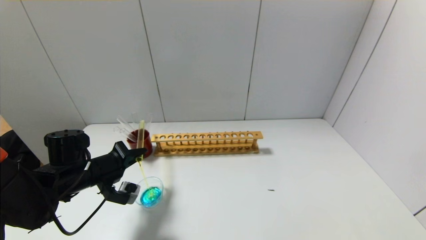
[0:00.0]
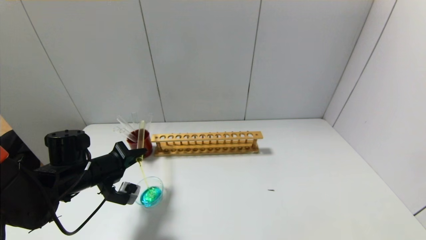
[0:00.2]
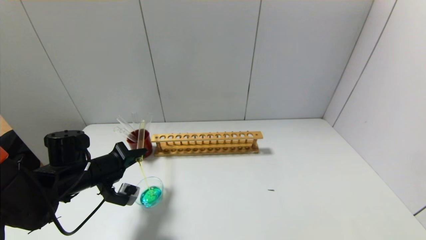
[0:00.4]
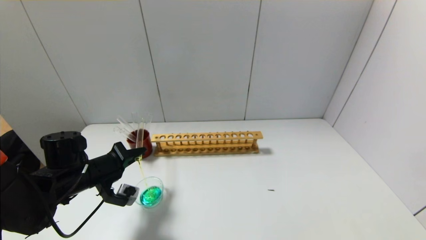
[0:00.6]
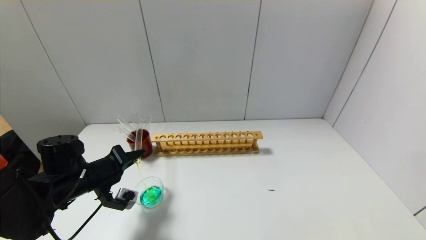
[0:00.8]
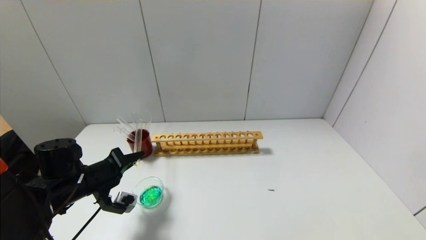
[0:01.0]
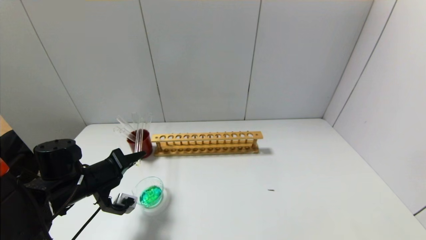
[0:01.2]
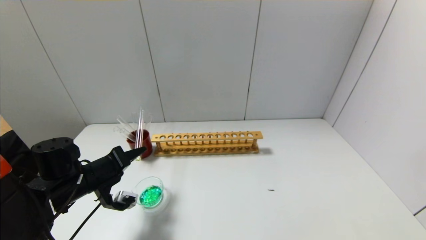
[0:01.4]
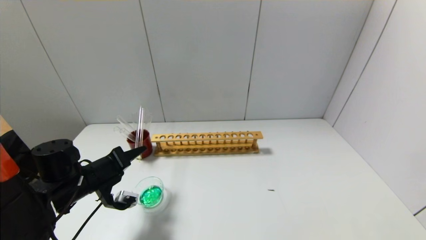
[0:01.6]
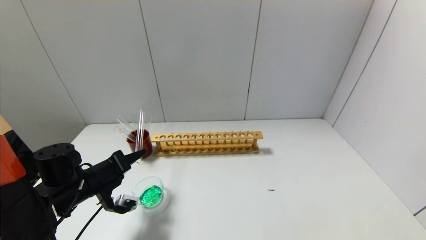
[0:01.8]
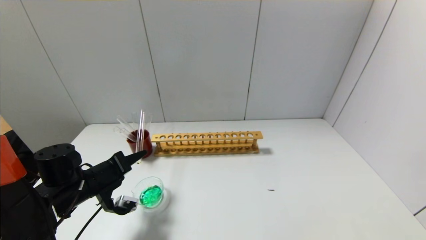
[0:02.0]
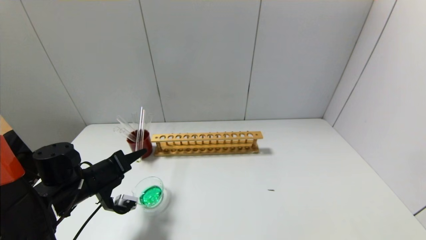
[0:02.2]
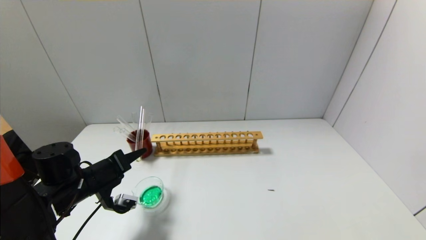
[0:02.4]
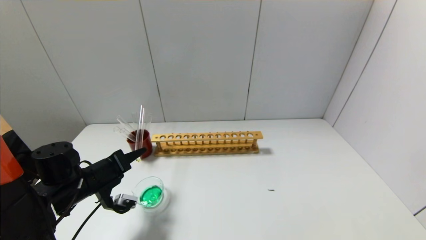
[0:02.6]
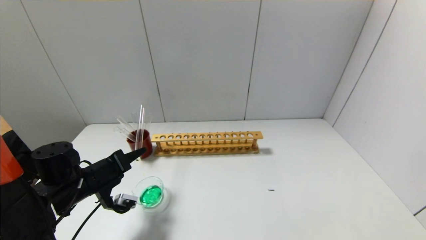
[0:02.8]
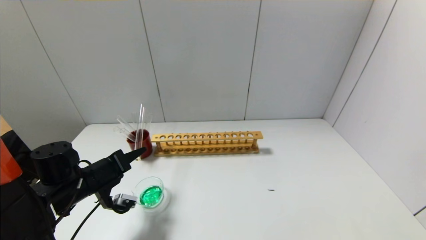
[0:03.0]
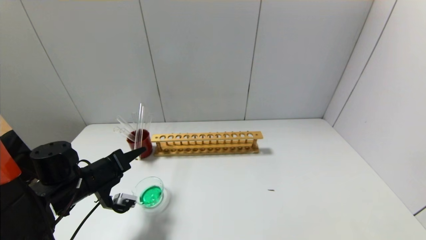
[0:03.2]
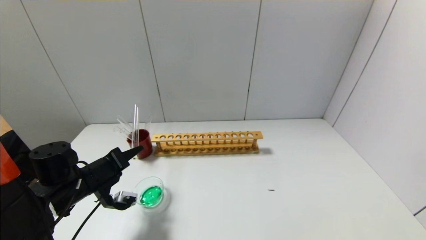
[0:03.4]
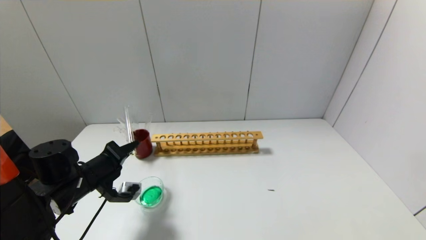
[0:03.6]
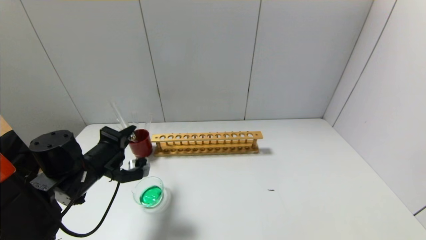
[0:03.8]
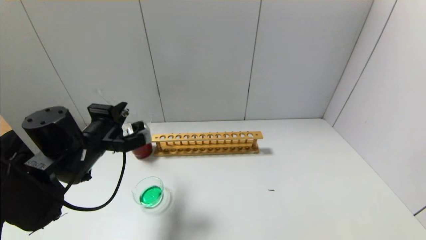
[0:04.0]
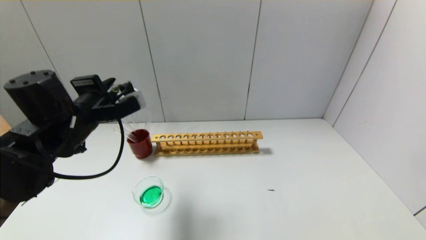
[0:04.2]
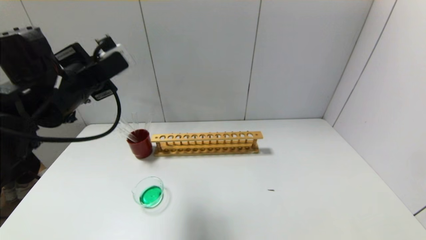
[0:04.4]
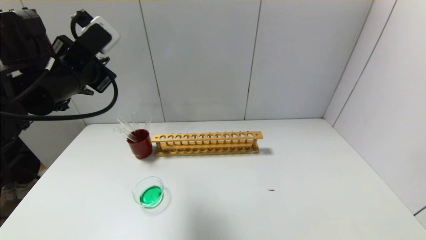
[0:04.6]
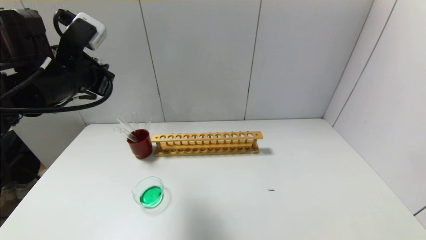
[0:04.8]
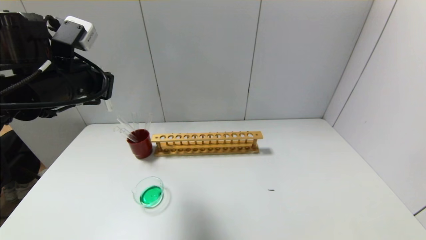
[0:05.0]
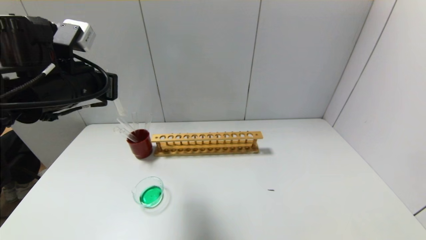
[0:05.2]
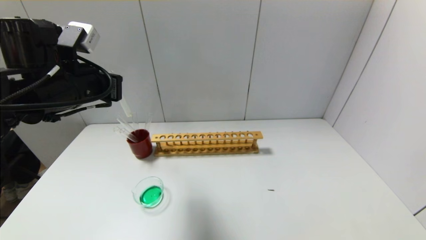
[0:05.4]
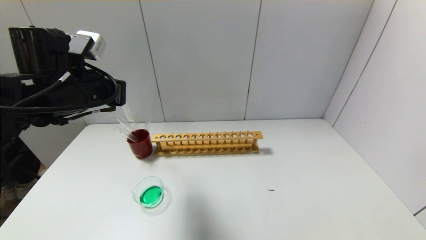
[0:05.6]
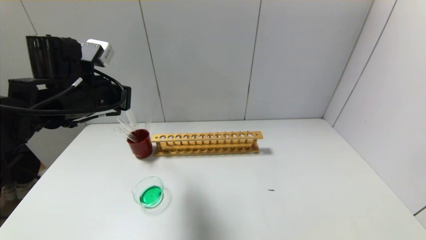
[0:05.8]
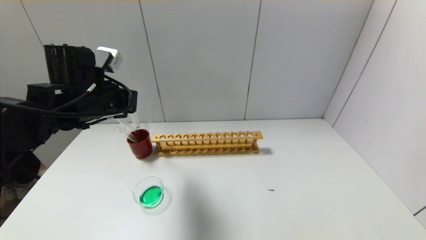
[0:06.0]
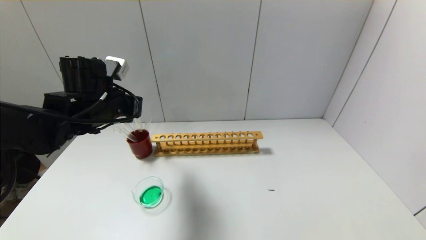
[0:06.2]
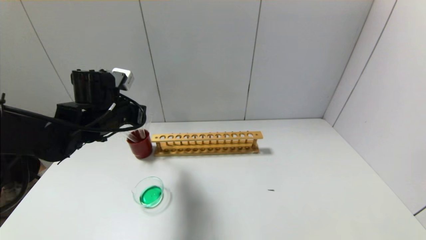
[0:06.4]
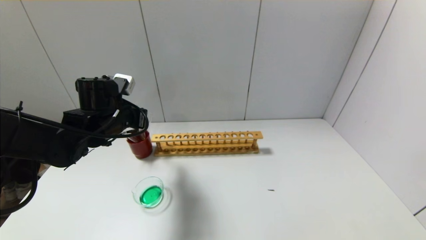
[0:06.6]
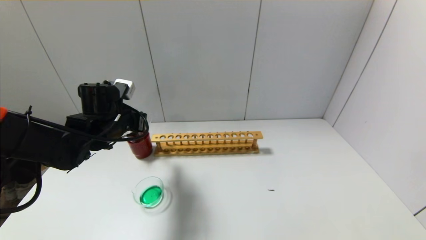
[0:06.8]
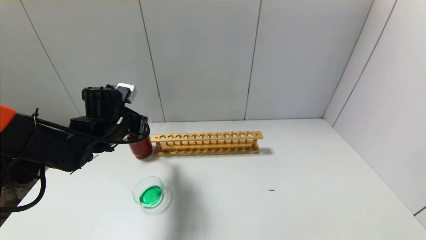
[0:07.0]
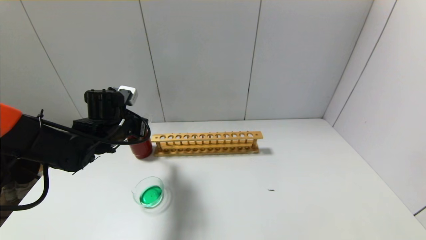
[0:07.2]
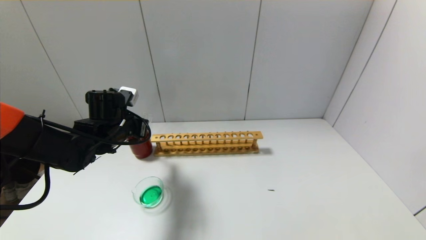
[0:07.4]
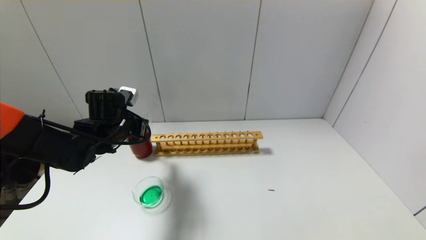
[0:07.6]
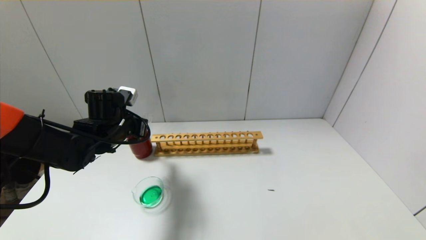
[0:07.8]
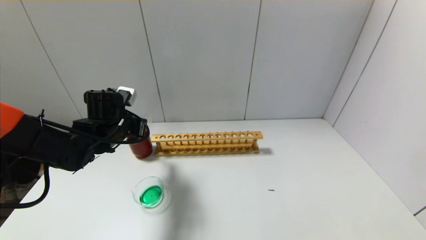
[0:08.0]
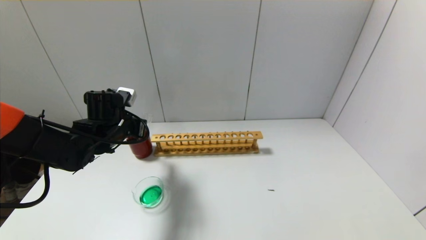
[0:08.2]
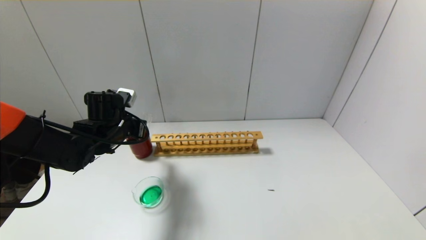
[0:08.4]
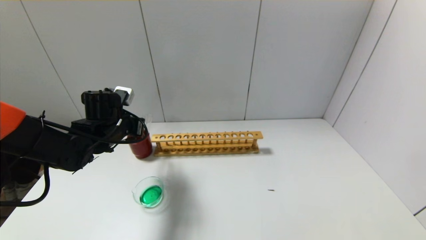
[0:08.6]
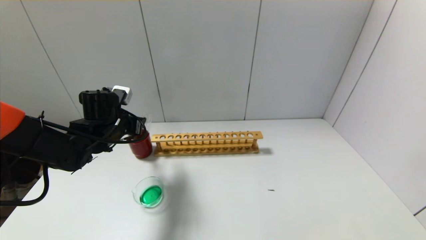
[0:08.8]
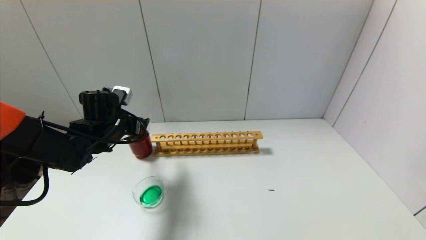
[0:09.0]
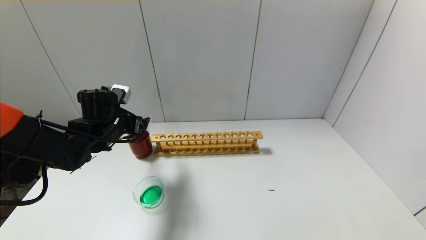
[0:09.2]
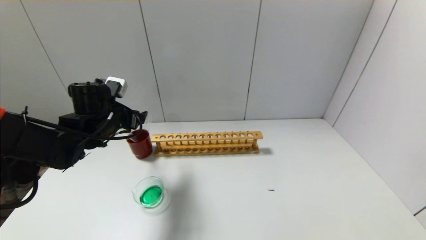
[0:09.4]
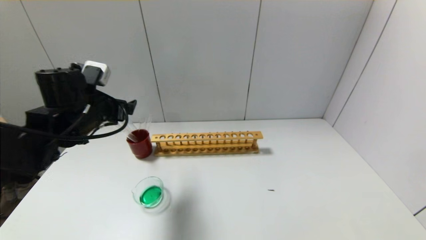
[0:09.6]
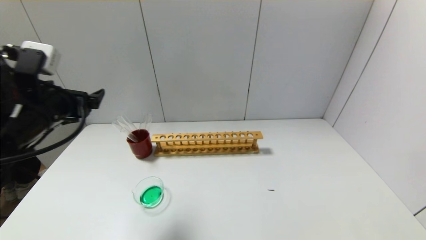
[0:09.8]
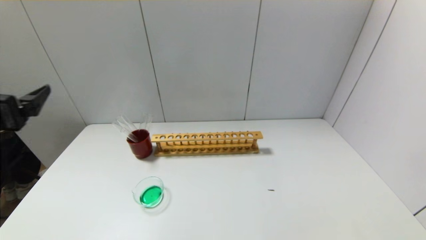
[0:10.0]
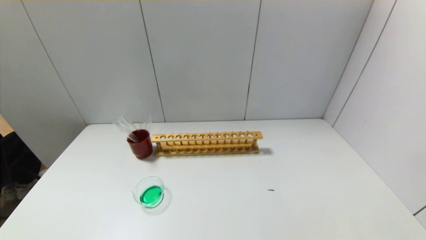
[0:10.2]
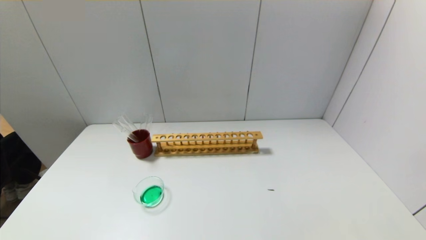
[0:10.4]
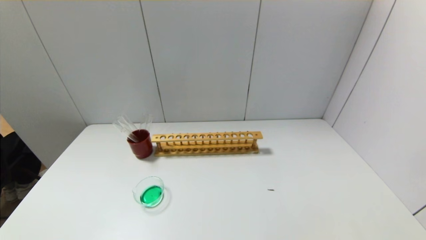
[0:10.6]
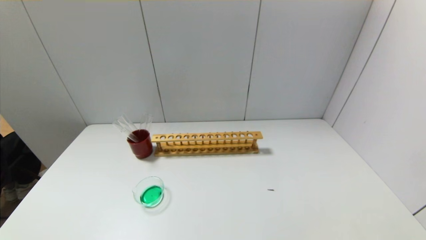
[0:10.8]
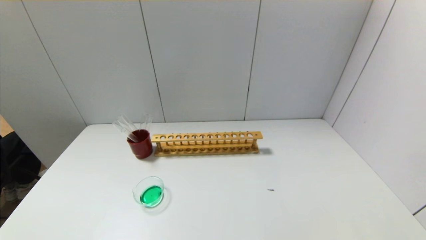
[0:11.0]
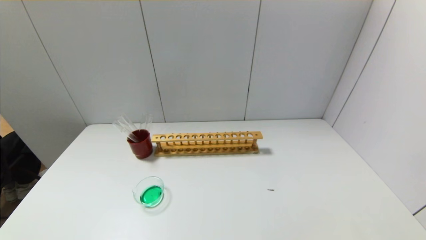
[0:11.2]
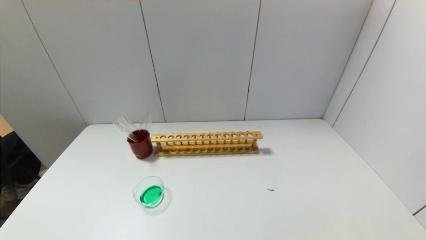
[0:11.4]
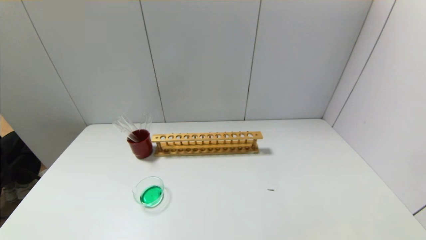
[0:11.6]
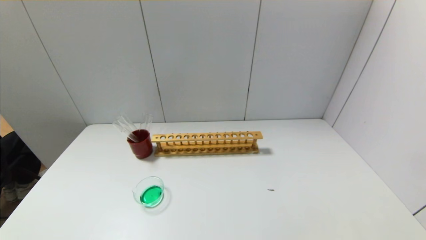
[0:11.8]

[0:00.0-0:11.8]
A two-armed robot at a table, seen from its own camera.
Step, 0:00.0 to 0:03.4: Pour the yellow reagent into the graduated cylinder with the left gripper.
Step, 0:03.6 to 0:08.6: Place the test tube into the brown cup with the left gripper.
0:00.0 to 0:01.4: There are only small adjustments of the grippers.
0:01.4 to 0:03.0: The grippers move only a little.
0:03.0 to 0:04.4: The left gripper is displaced upward by approximately 20 cm.
0:06.0 to 0:07.4: The left gripper moves downward, some 10 cm.
0:07.4 to 0:08.8: The left gripper opens up.
0:08.8 to 0:10.4: The left gripper heads backward, covering approximately 35 cm.

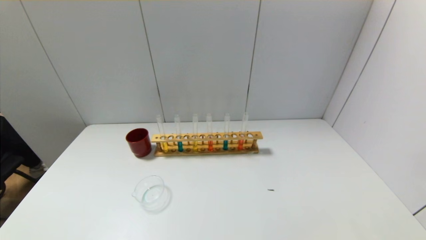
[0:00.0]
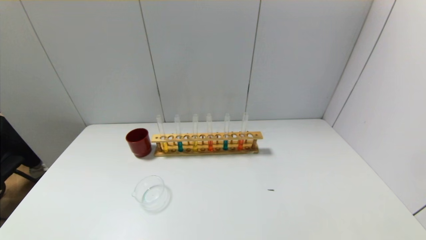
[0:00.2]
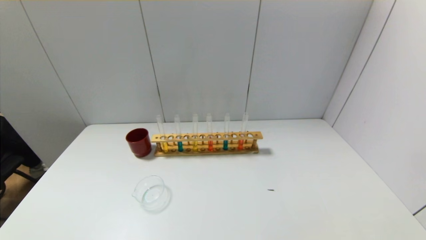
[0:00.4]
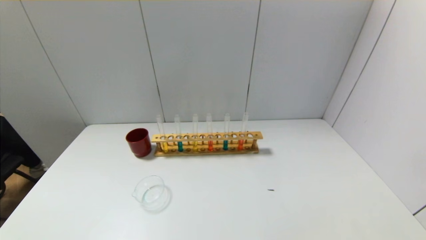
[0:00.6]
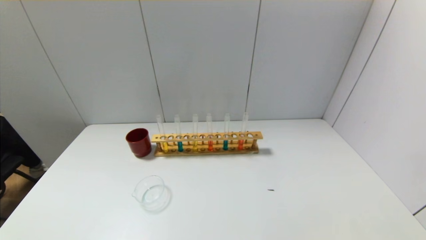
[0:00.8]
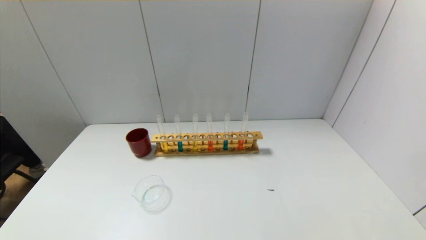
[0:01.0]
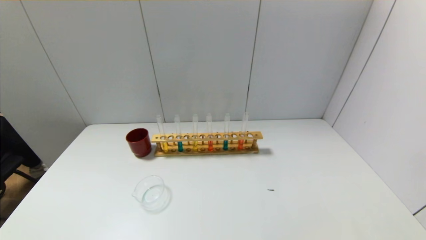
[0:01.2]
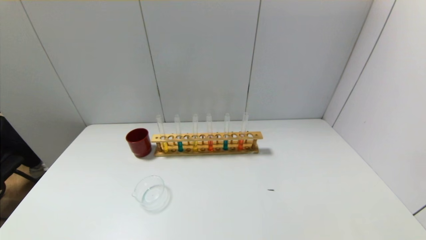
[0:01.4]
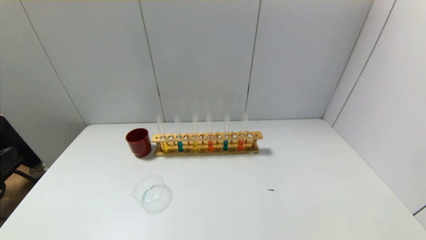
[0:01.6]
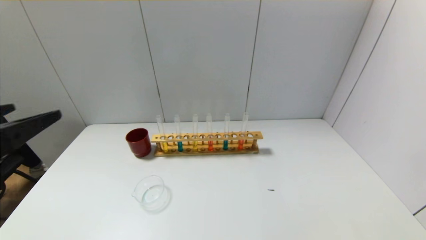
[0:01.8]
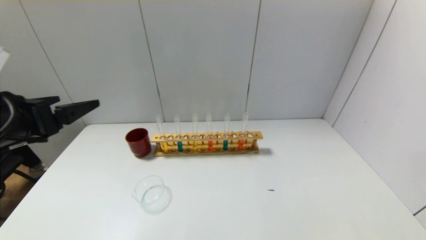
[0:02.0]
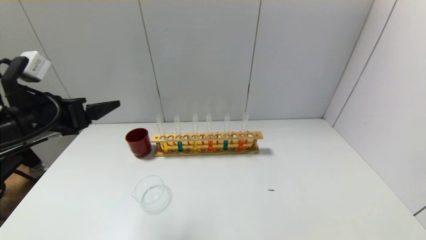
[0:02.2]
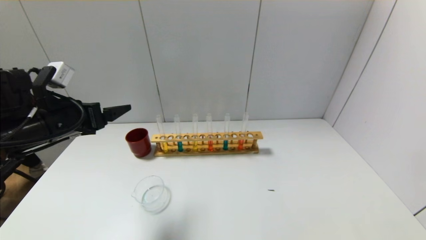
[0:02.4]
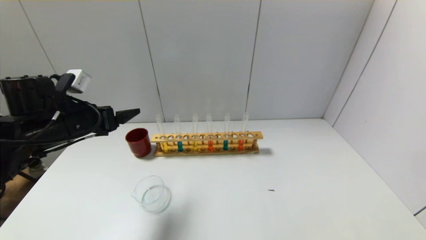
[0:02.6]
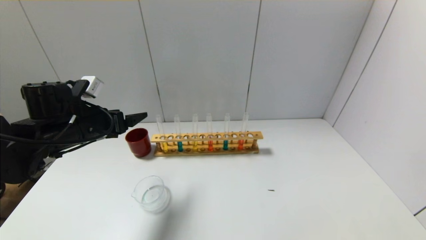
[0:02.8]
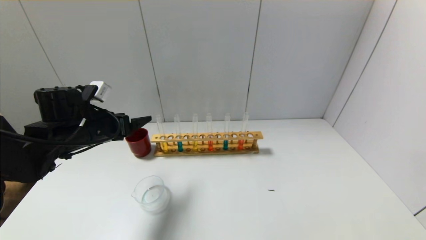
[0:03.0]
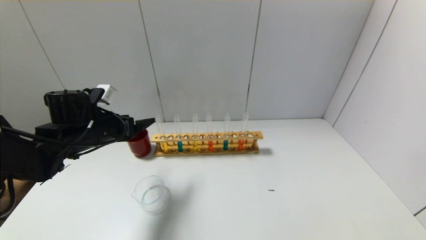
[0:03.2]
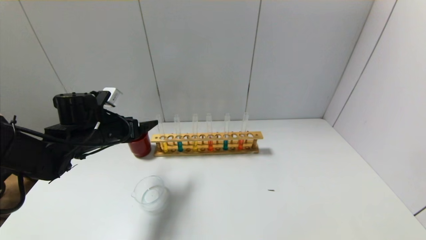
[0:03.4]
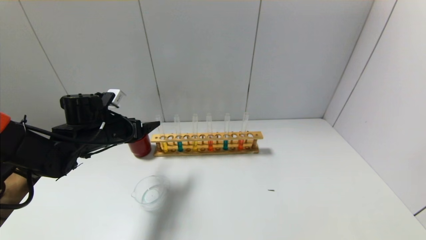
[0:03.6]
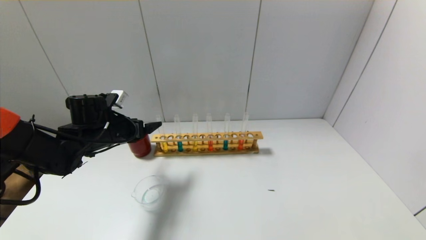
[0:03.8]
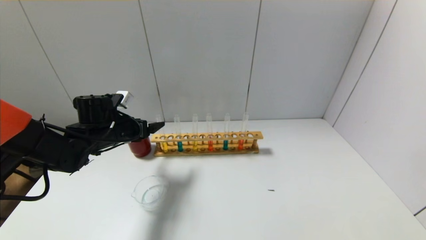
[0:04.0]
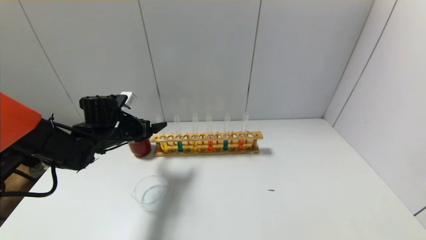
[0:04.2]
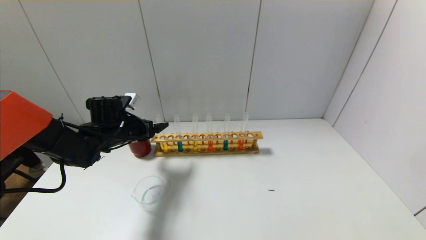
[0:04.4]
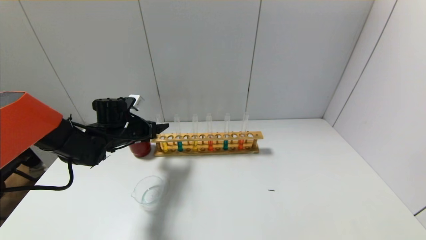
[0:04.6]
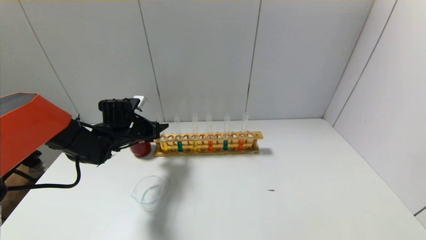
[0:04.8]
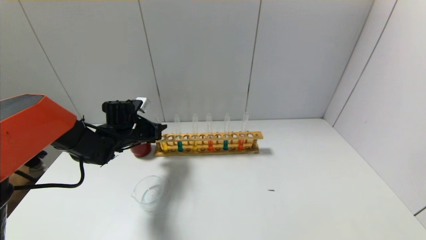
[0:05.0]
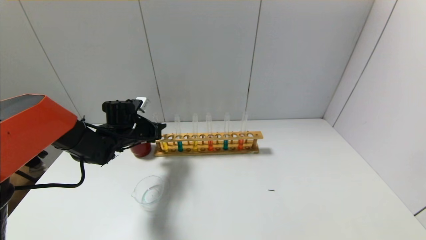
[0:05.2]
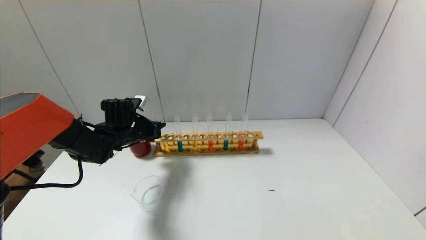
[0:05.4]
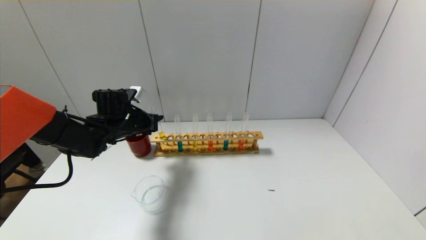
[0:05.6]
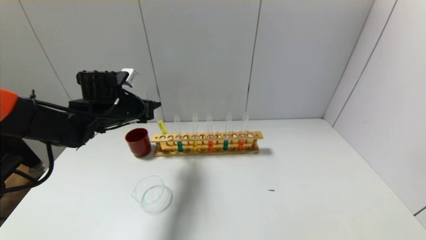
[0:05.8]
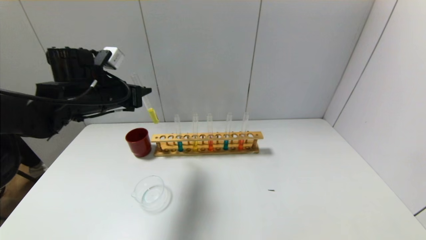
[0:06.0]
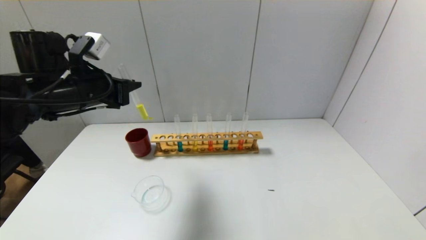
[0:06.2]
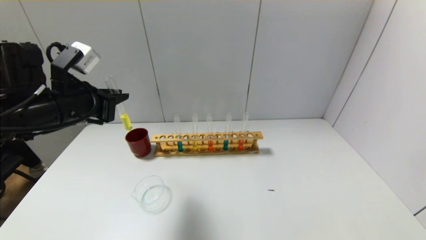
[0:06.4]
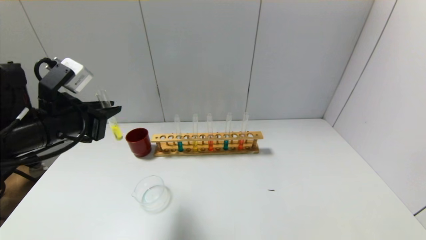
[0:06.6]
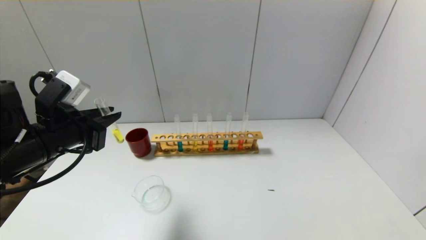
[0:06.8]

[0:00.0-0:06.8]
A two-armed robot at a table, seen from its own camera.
Step, 0:00.0 to 0:05.0: Grasp the yellow reagent with the left gripper.
0:01.4 to 0:02.8: The left gripper heads forward, covering some 30 cm.
0:02.8 to 0:04.0: The left gripper heads forward and downward, covering roughly 10 cm.
0:04.0 to 0:05.4: The left gripper moves some 5 cm, and closes up.
0:05.4 to 0:06.8: The left gripper heads backward and upward, covering about 20 cm.
